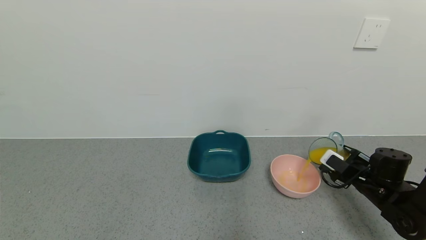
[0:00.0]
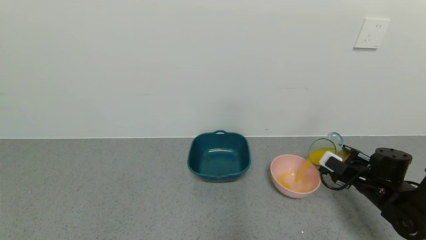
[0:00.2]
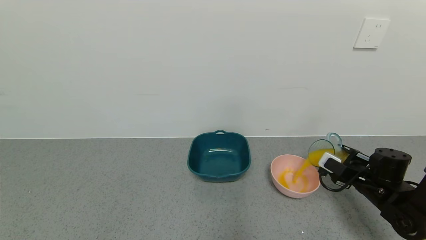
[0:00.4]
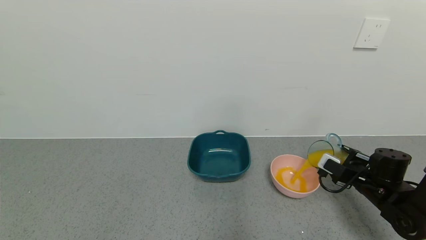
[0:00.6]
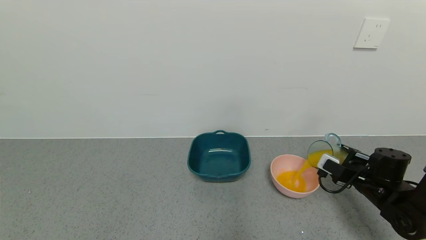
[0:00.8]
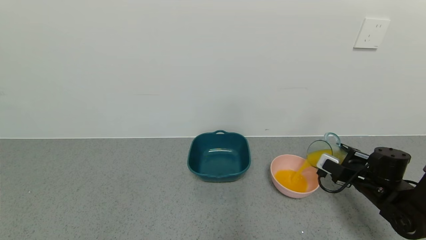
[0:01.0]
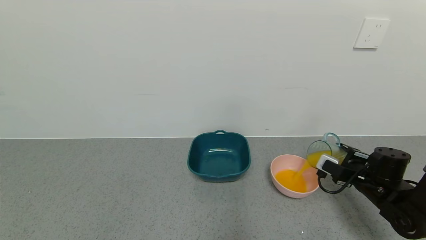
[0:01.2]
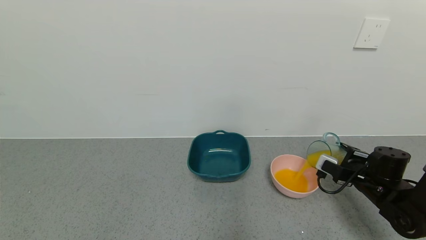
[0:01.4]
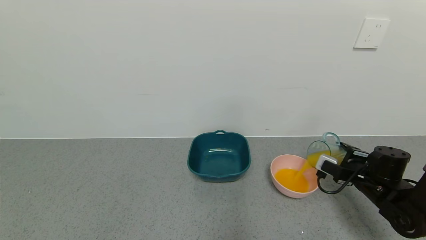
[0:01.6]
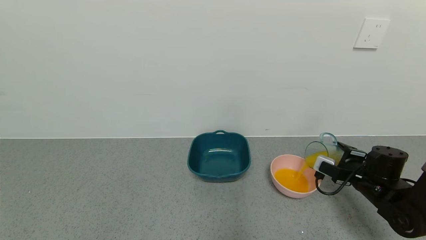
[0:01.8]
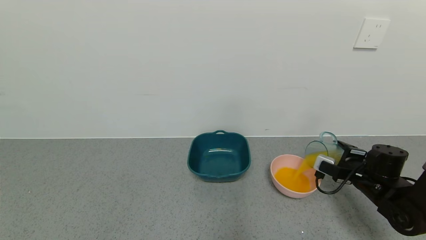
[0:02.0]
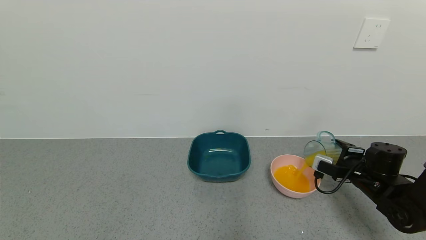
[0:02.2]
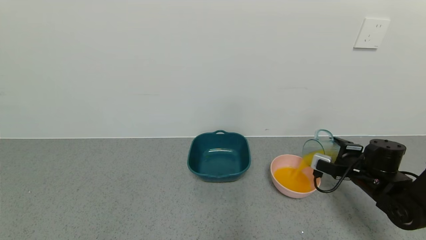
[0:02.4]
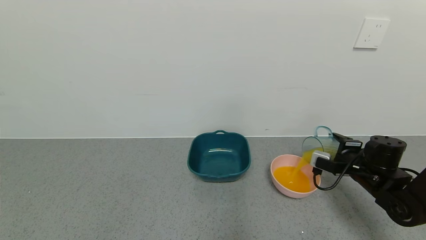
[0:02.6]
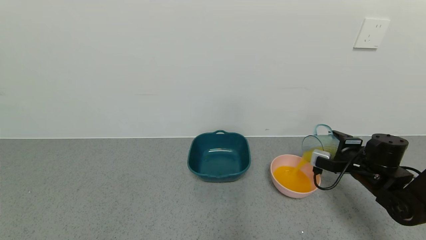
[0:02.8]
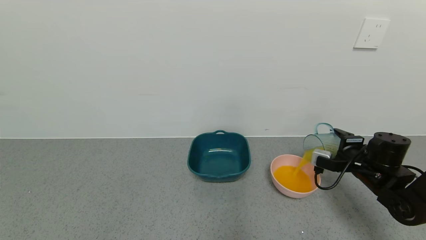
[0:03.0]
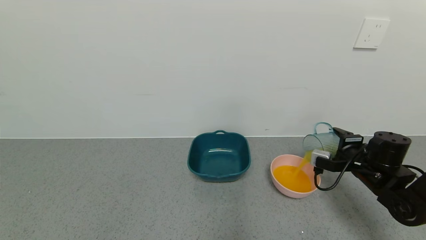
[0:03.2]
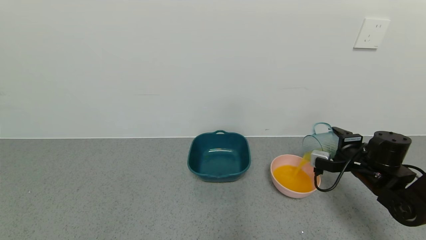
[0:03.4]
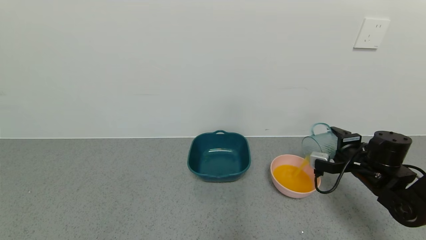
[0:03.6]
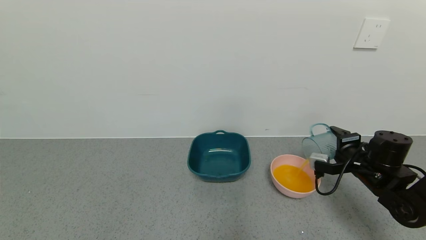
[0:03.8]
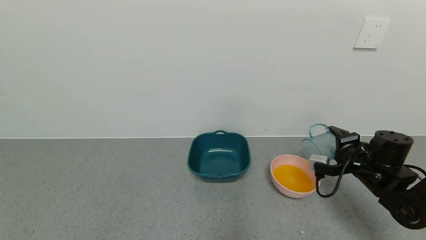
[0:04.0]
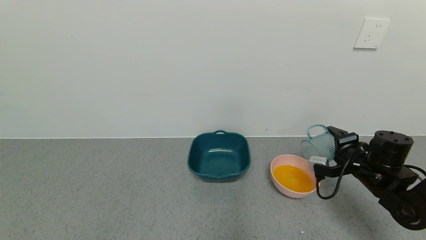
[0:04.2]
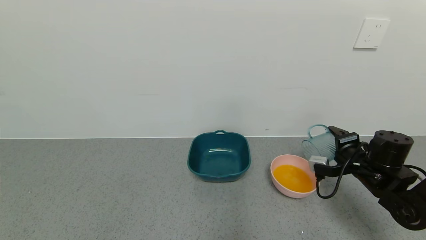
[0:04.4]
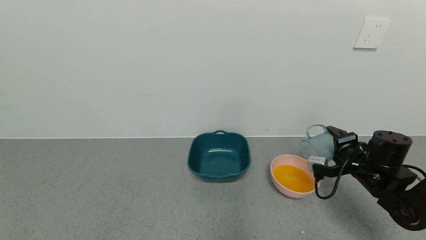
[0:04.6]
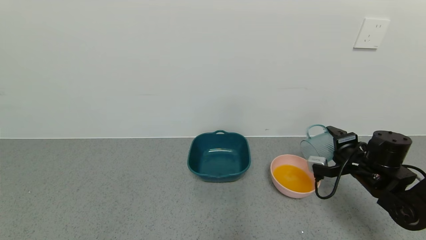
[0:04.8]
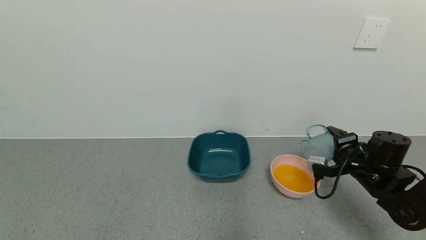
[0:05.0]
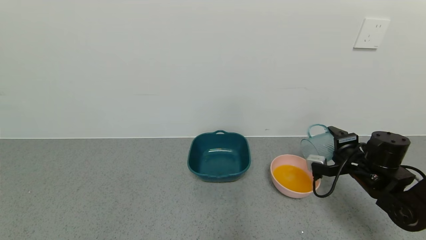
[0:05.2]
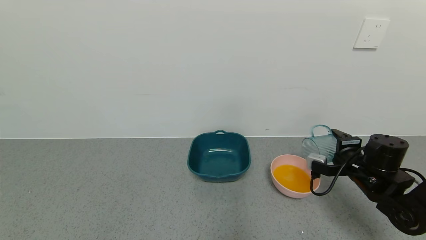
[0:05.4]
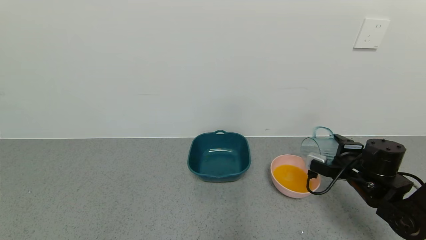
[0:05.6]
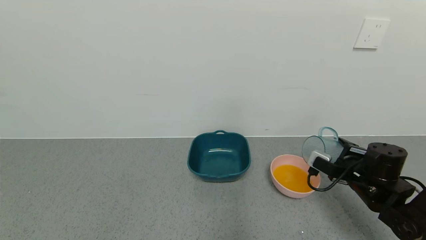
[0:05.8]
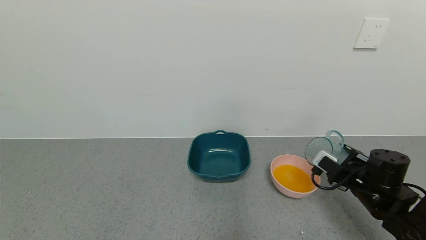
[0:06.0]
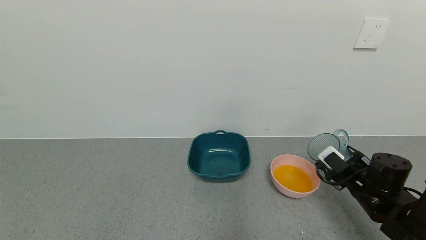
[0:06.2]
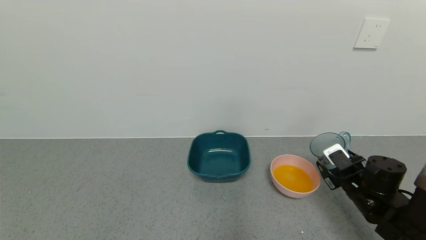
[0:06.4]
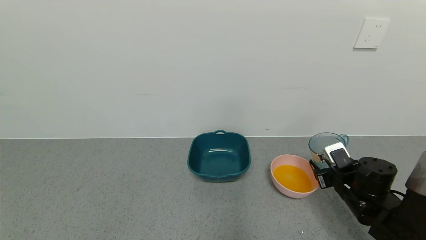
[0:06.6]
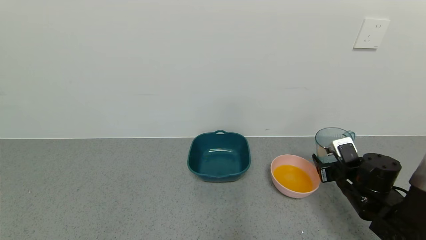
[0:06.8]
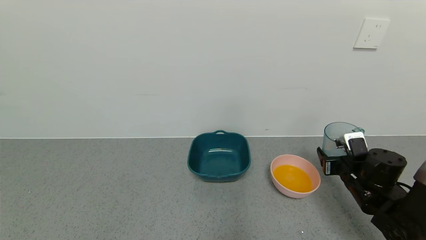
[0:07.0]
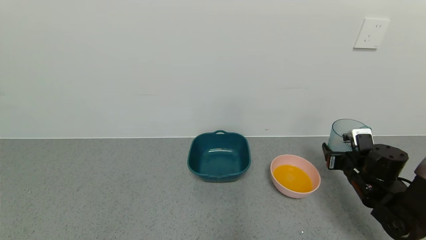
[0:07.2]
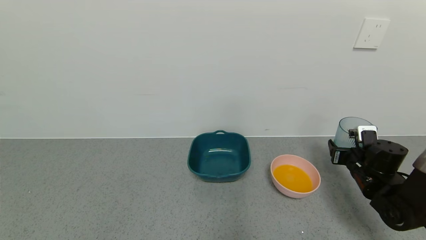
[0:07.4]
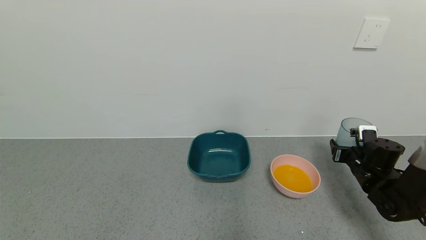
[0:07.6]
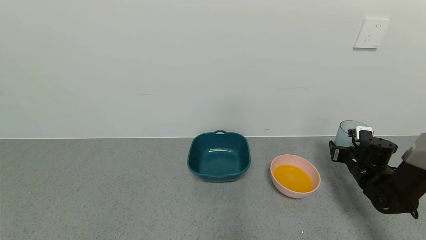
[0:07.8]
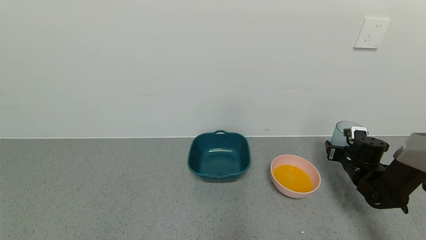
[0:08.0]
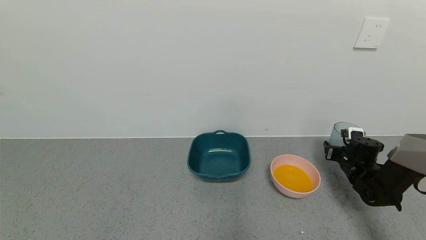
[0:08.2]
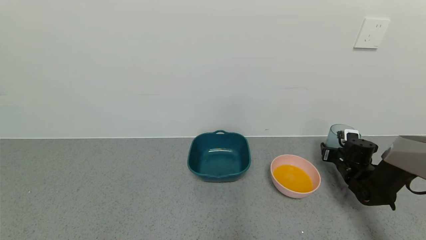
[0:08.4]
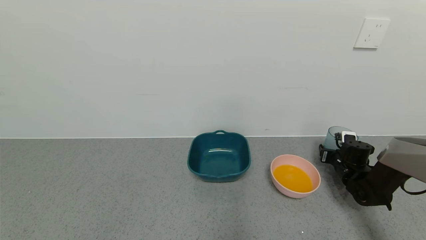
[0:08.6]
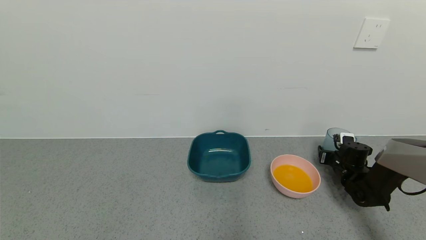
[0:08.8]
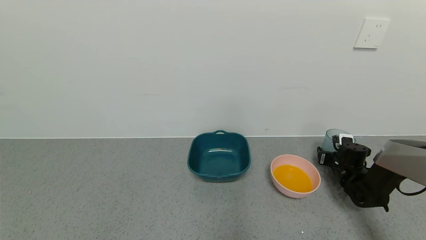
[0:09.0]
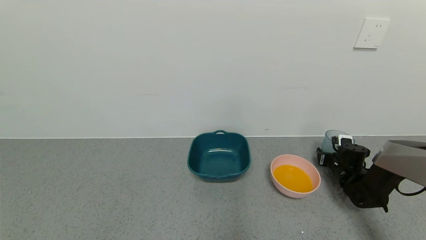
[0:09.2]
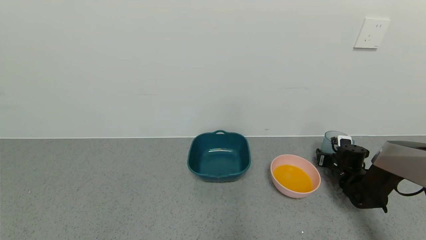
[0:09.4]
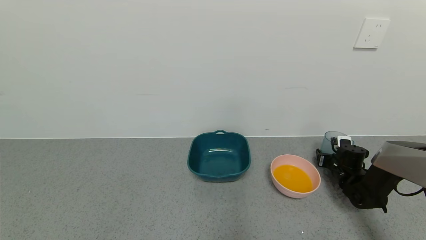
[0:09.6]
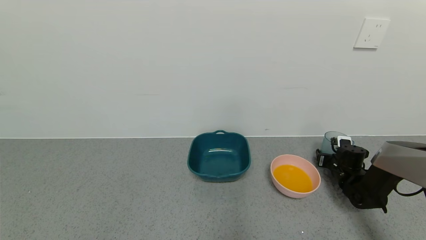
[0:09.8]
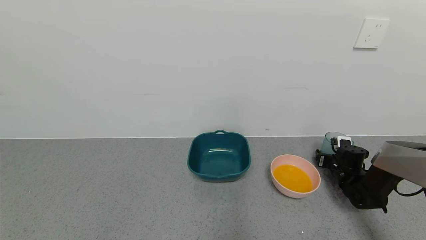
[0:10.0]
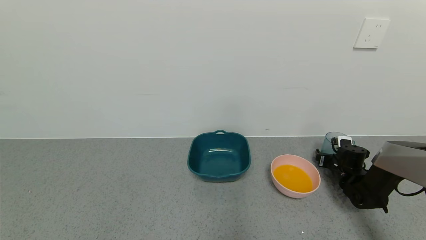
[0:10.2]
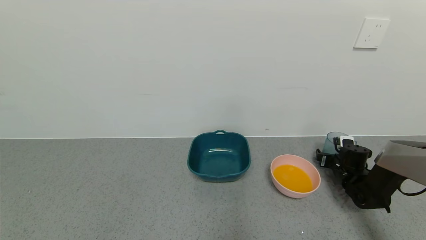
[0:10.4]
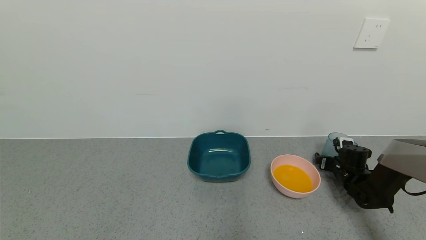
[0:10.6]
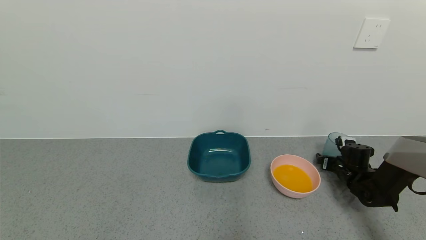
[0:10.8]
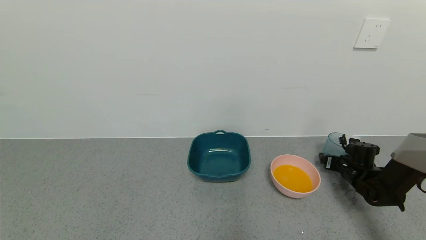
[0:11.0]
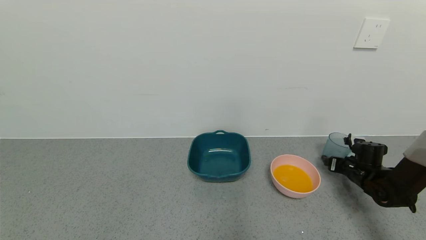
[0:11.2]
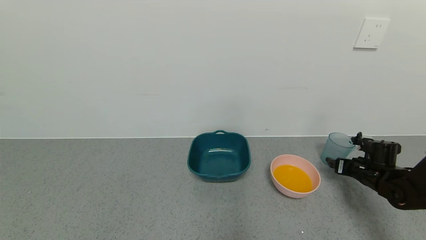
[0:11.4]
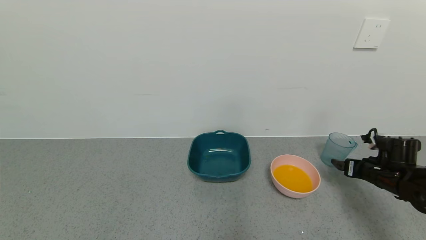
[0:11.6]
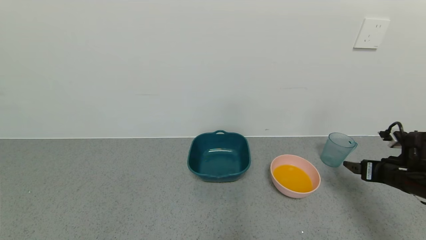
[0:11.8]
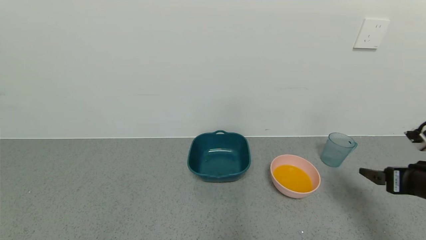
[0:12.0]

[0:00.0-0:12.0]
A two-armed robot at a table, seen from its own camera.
Task of the whole recording: use a gripper to pick up the cup and pour the liquid into a bowl or tray.
Step, 0:00.0 to 0:05.4: Pour the orange juice into the pink bowl with the right gripper.
Step, 0:05.6 to 0:11.8: Place the glass cup with the right gripper.
0:00.0 to 0:01.6: There are only small adjustments of the grippers.
0:01.6 to 0:03.0: The grippers stay close to where they were, moving slightly.
0:03.0 to 0:04.4: The grippers move only a little.
0:06.0 to 0:07.6: The right gripper goes roughly 10 cm forward and to the right.
0:07.6 to 0:09.0: The right gripper moves downward and forward, approximately 10 cm.
0:09.0 to 0:10.4: The right gripper opens its fingers.
0:10.4 to 0:12.0: The right gripper heads backward and upward, covering roughly 30 cm.

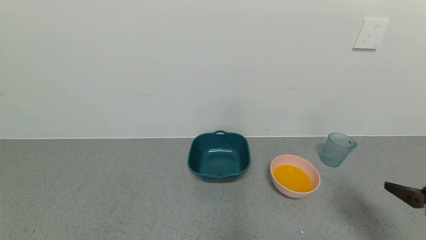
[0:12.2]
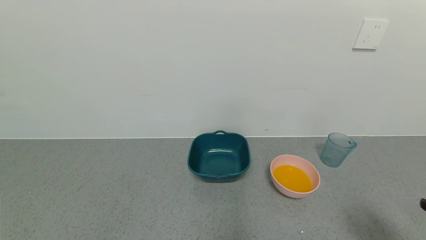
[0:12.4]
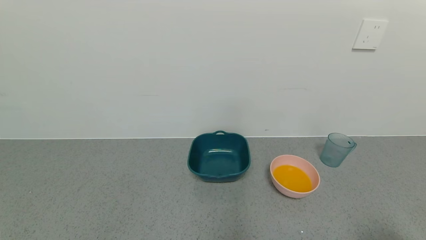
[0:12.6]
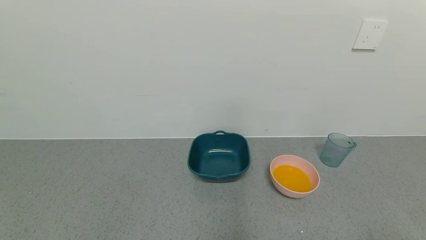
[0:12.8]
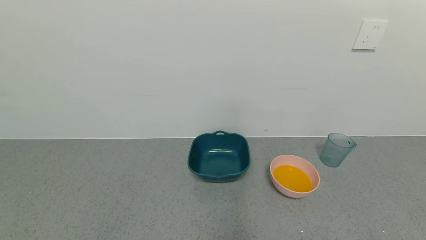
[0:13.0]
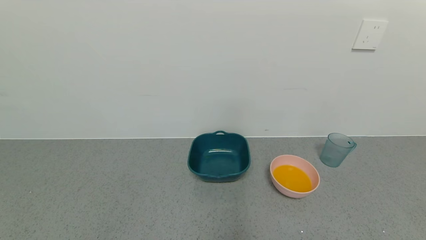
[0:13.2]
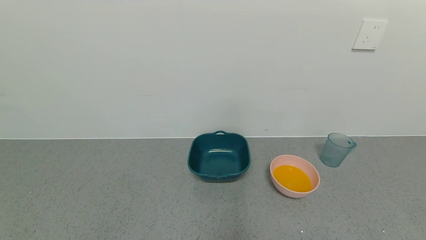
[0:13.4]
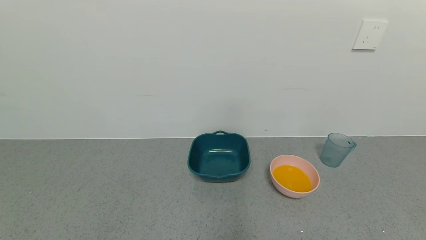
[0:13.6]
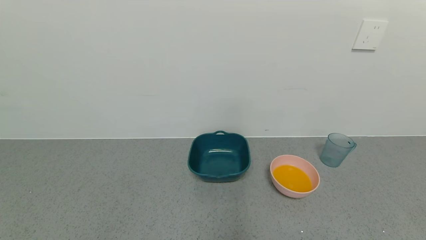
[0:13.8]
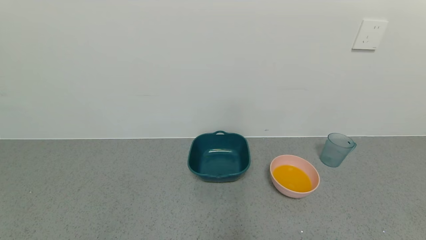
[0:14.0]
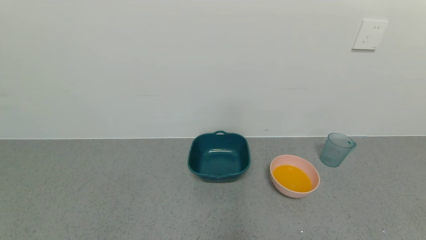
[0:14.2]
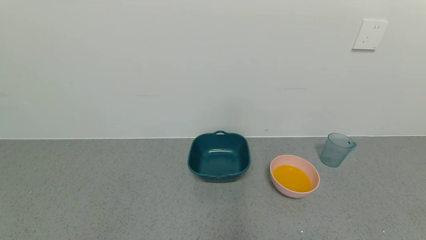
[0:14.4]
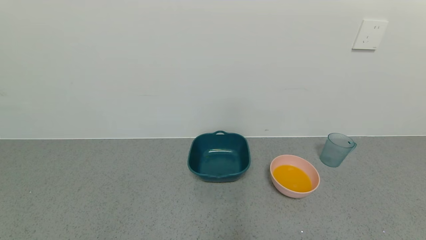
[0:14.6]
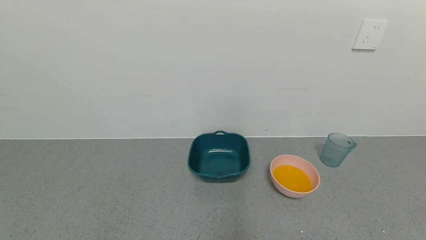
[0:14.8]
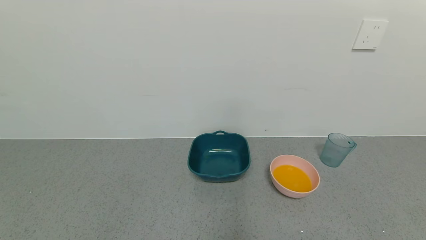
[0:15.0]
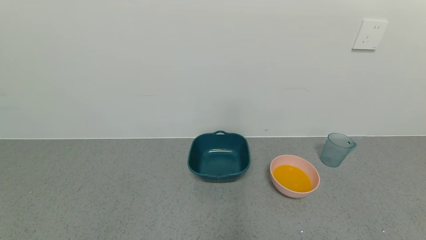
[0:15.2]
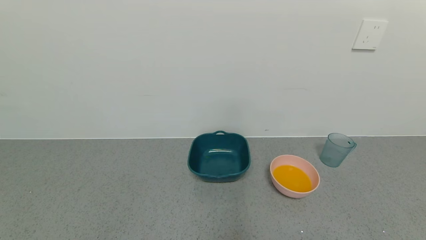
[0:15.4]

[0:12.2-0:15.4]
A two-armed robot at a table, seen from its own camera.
Task of the whole recording: use a gripper to pick up the cup and pour the liquid into a bowl or tray.
0:12.2 to 0:13.8: The right gripper travels backward by about 25 cm.
